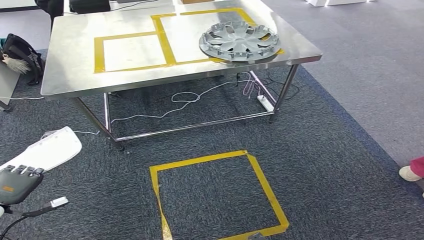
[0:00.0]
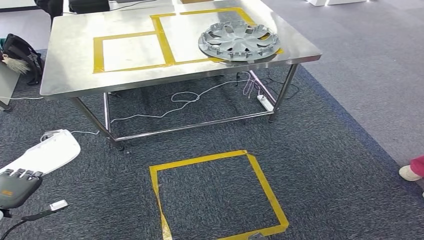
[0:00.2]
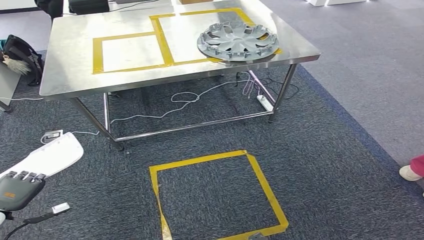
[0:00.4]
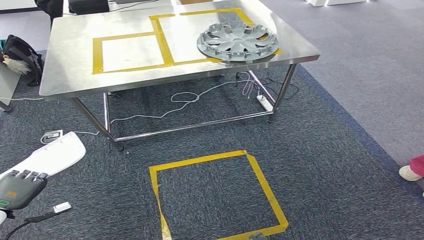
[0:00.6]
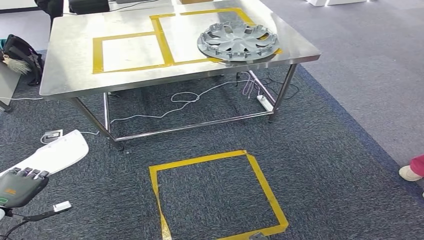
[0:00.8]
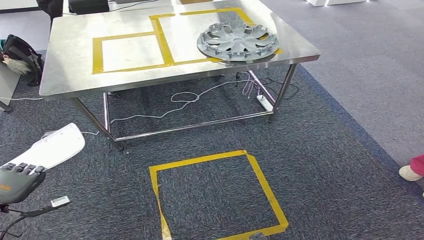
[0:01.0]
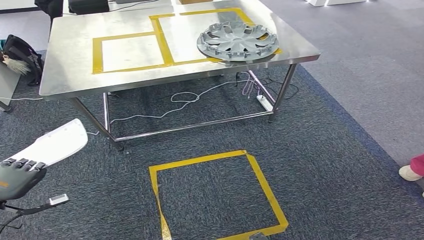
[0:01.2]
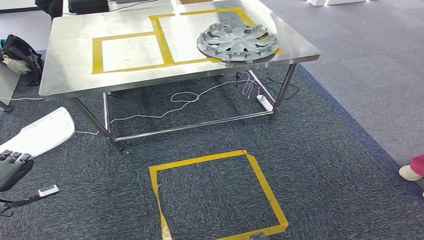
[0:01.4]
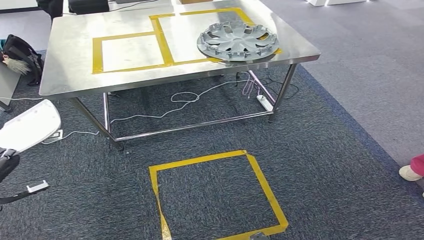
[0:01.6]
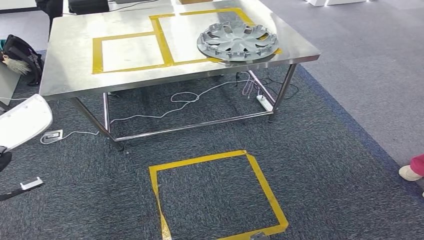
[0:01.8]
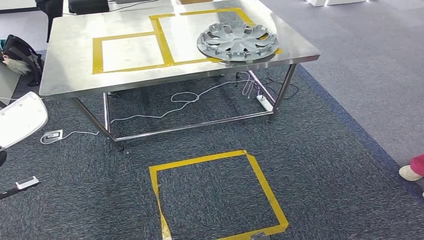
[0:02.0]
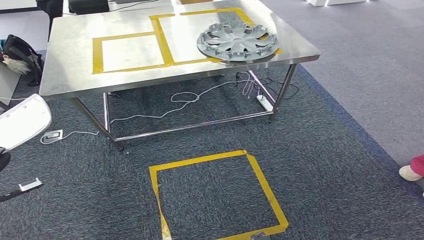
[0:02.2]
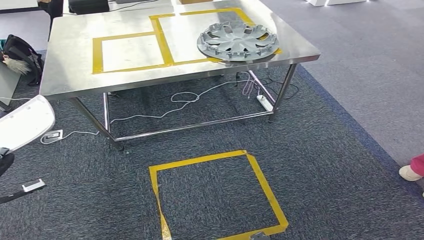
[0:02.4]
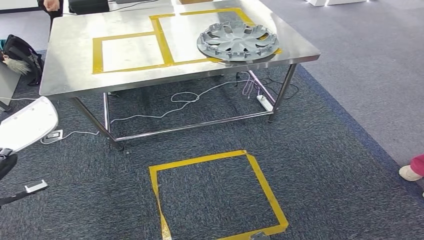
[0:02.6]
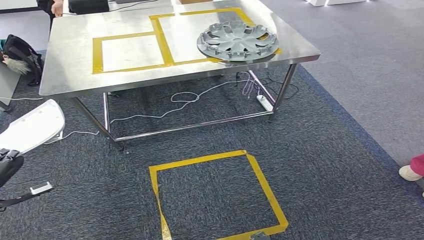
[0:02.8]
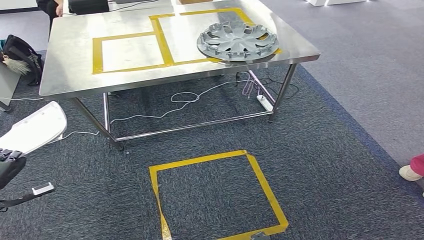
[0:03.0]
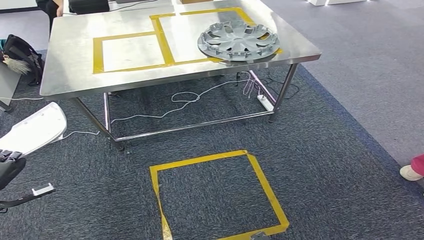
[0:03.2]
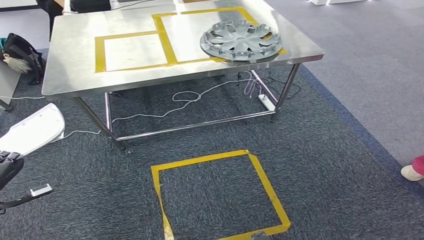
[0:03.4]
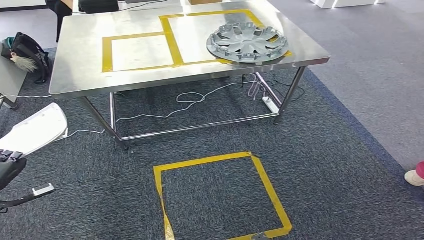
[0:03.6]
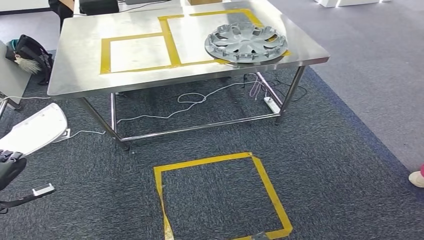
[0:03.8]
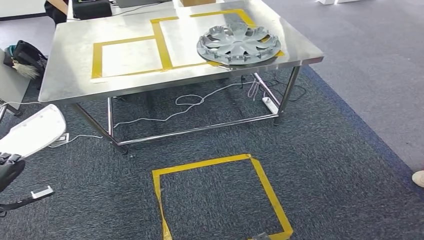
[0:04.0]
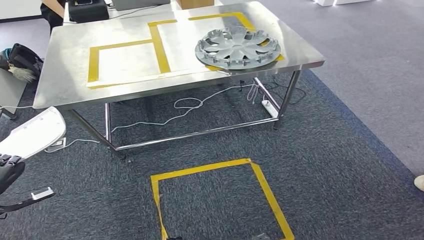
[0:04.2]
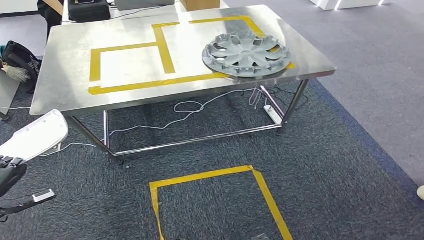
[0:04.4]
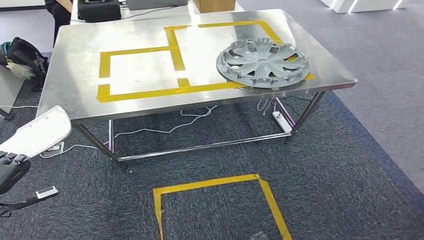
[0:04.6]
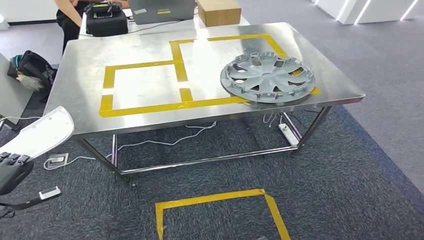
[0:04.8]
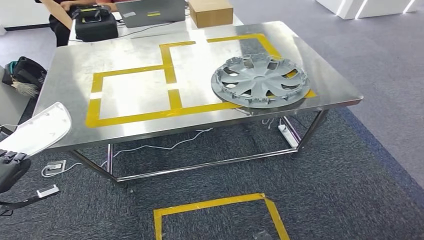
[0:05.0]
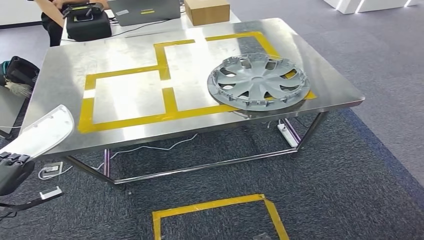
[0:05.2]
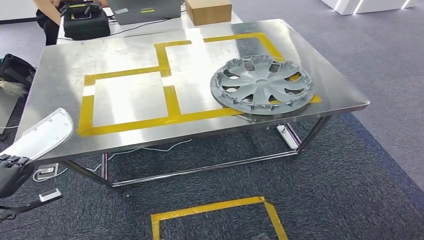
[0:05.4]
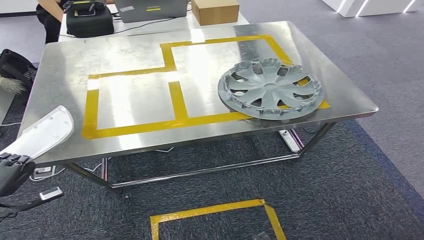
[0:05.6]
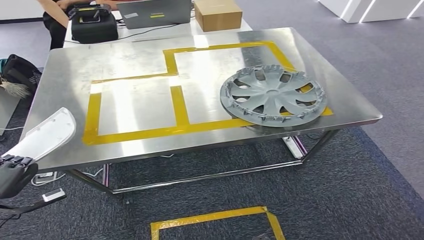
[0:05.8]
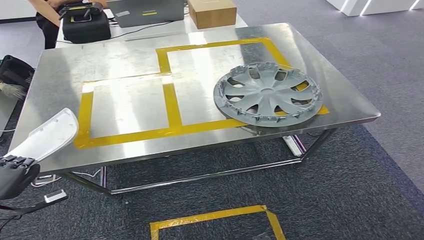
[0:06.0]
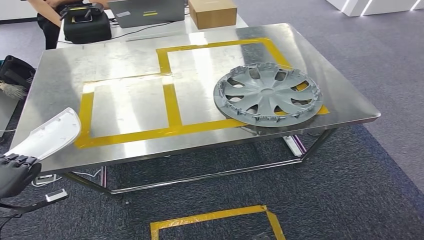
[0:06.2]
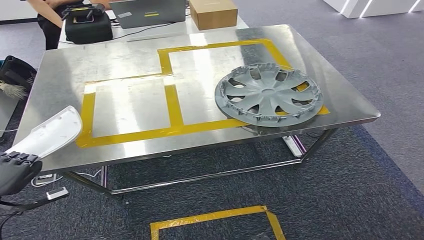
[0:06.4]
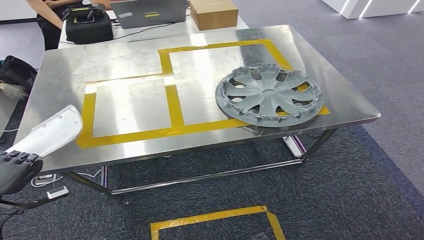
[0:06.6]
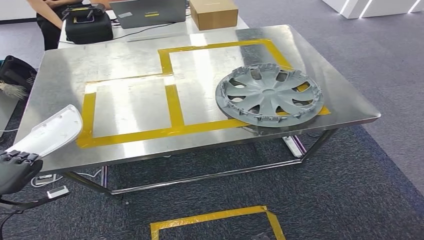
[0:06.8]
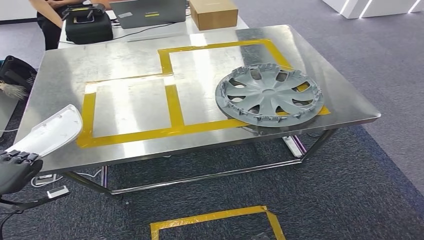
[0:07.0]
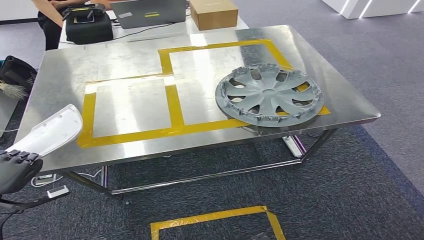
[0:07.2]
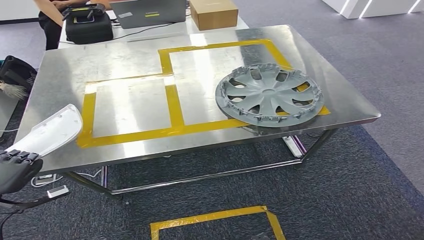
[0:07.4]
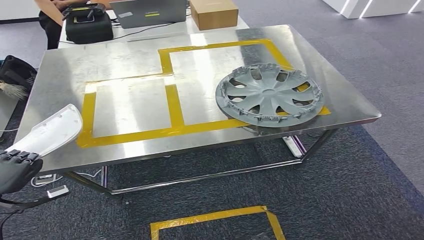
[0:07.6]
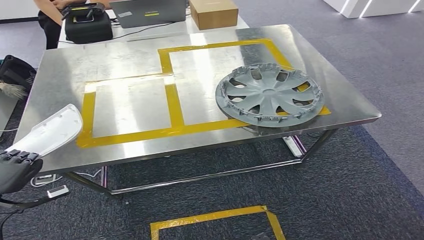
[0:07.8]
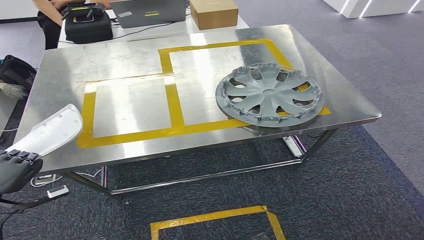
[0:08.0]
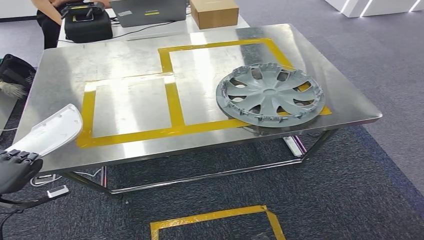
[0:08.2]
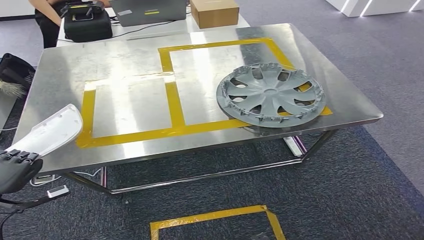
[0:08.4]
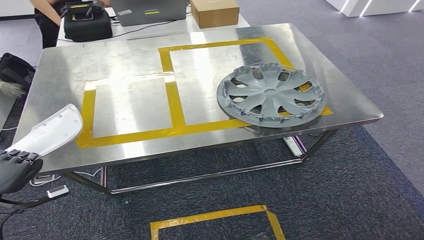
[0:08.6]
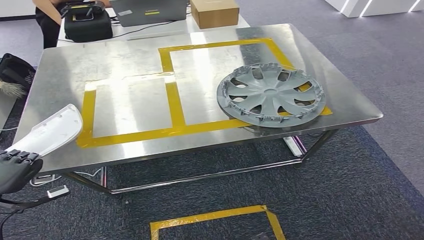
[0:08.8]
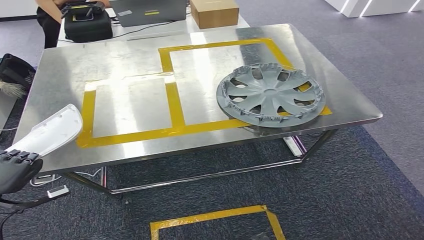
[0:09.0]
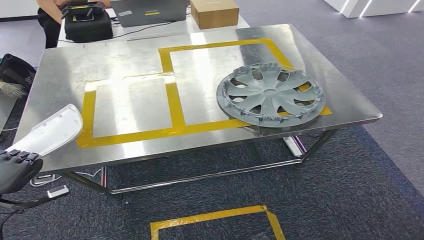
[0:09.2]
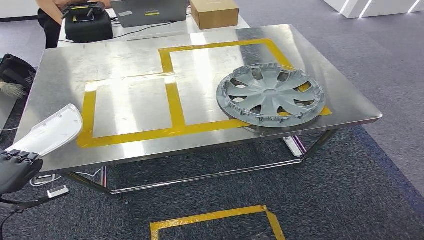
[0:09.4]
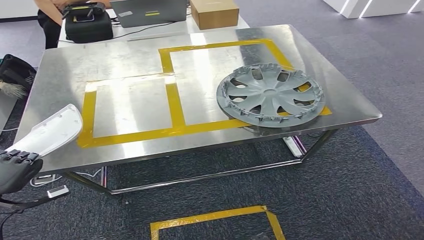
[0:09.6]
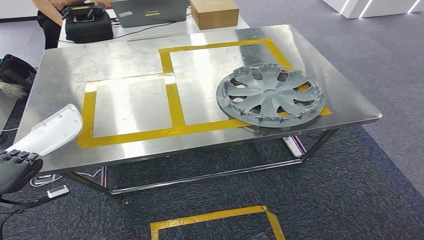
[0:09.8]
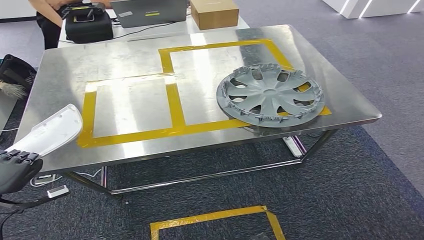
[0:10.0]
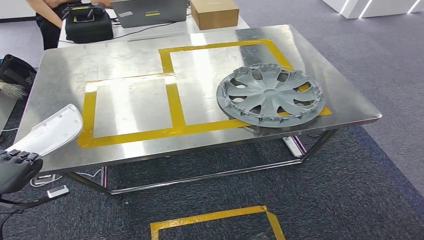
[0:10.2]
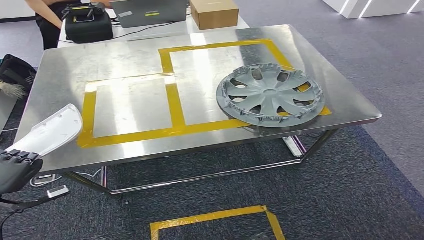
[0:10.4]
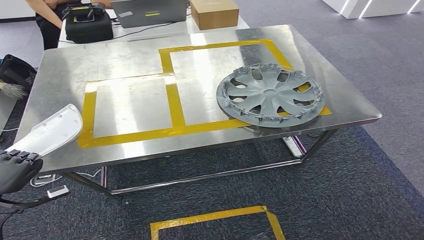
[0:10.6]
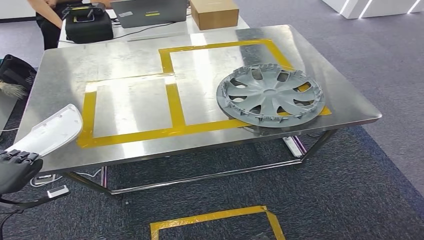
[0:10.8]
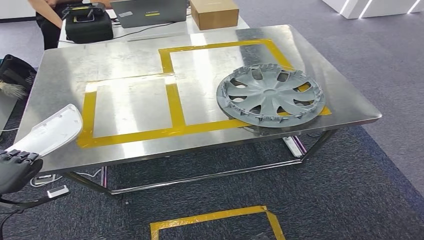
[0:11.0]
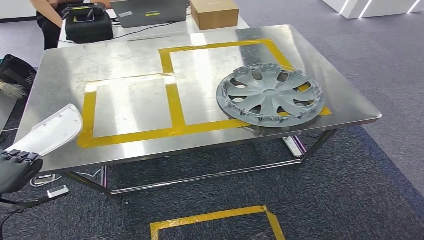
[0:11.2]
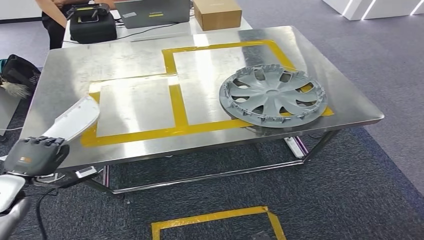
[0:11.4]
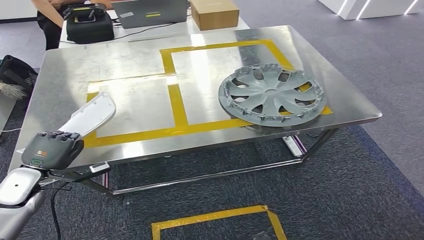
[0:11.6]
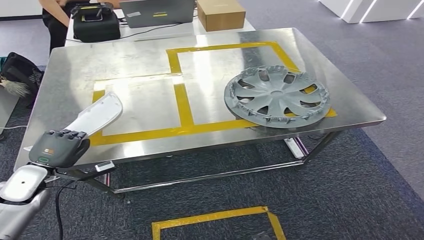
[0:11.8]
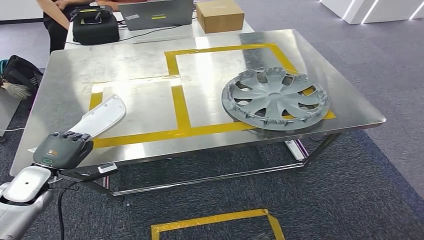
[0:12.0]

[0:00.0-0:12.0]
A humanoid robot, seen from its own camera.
Step, 0:00.0 to 0:06.6: Move the small parts to the workbench.
0:00.0 to 0:01.6: The left hand moves upward, about 10 cm.
0:01.6 to 0:03.0: The hands move only a little.
0:06.0 to 0:07.6: The hands move only a little.
0:07.6 to 0:10.4: Both hands stay put.

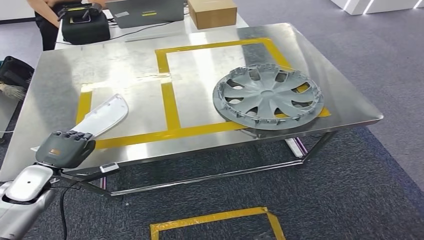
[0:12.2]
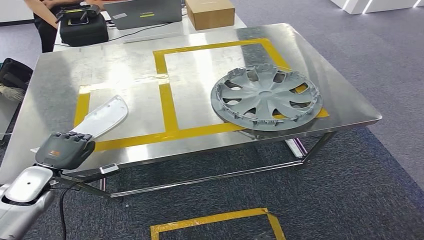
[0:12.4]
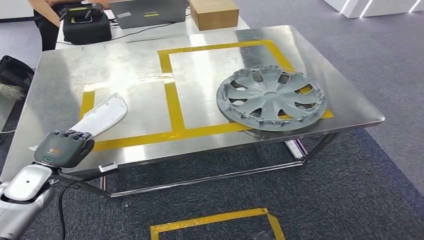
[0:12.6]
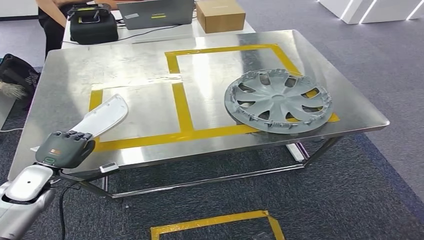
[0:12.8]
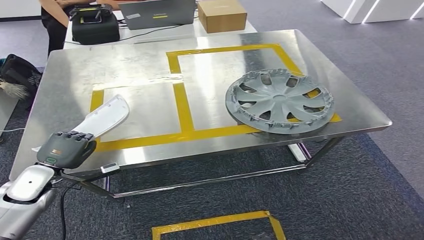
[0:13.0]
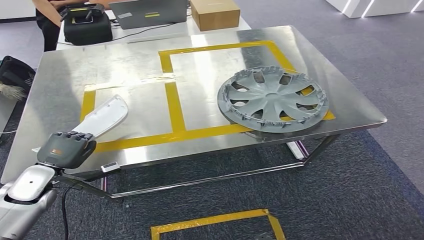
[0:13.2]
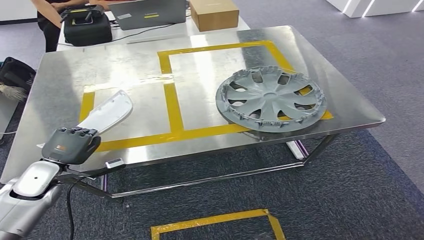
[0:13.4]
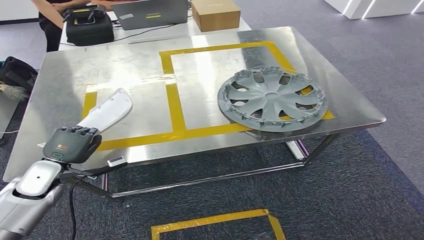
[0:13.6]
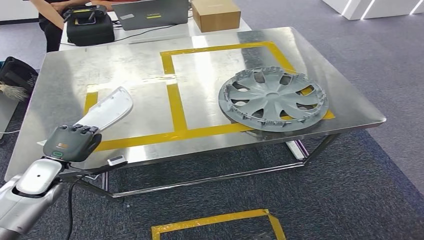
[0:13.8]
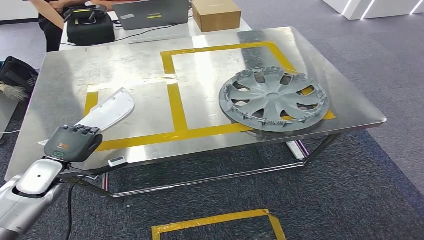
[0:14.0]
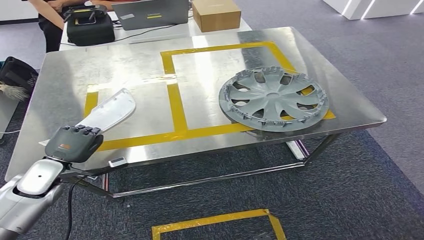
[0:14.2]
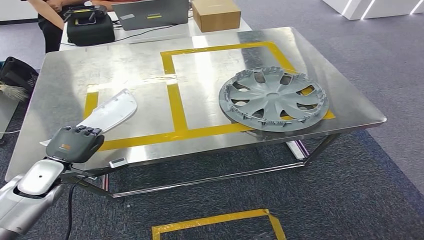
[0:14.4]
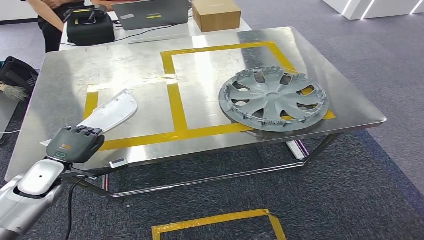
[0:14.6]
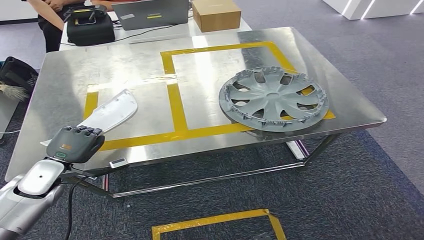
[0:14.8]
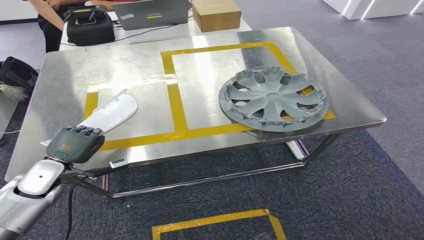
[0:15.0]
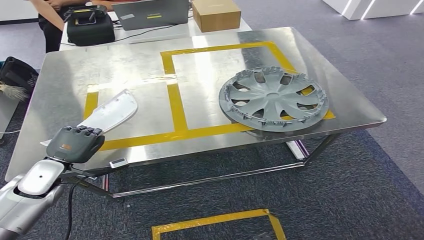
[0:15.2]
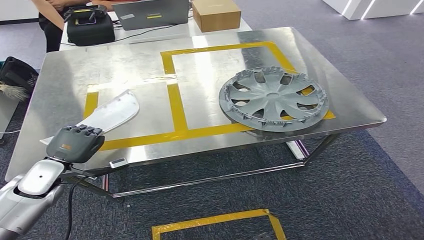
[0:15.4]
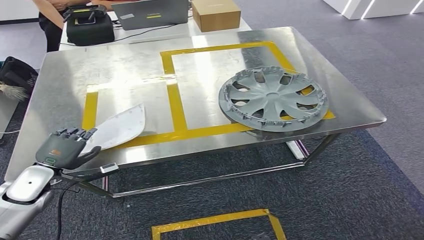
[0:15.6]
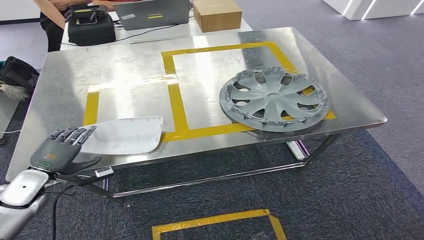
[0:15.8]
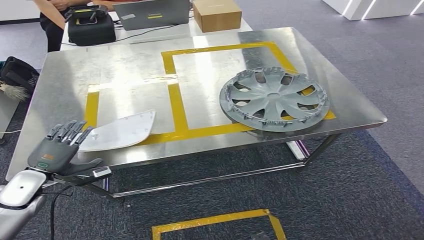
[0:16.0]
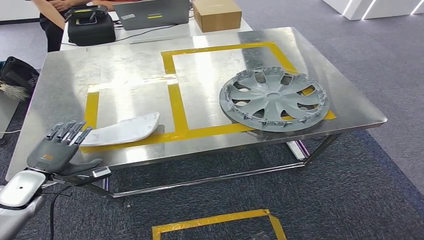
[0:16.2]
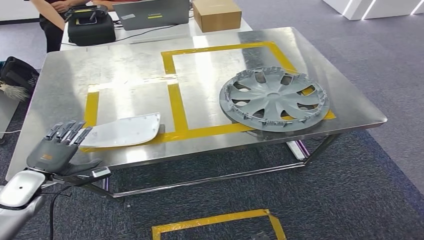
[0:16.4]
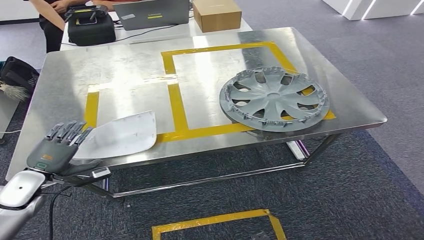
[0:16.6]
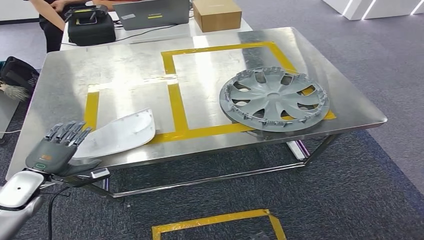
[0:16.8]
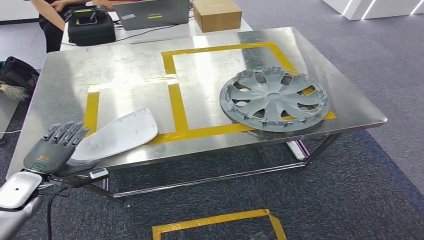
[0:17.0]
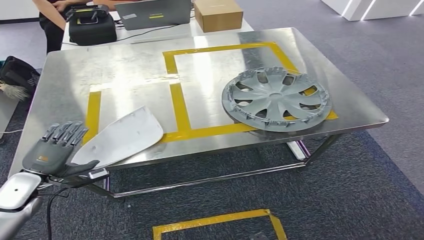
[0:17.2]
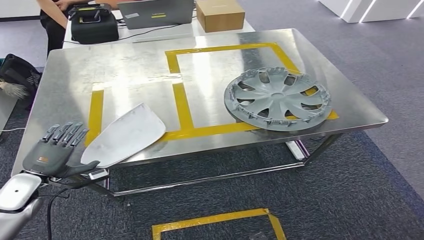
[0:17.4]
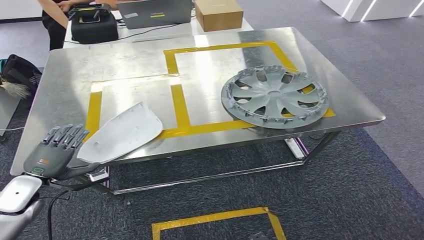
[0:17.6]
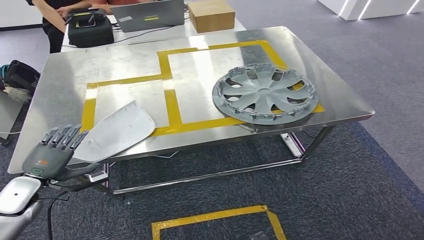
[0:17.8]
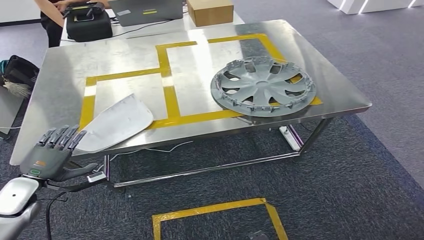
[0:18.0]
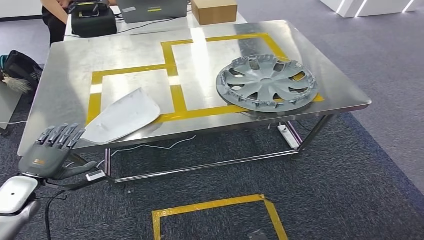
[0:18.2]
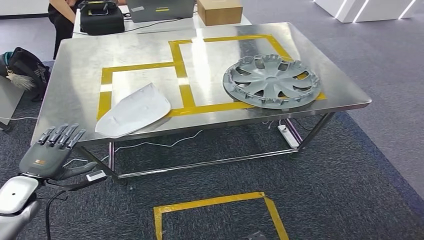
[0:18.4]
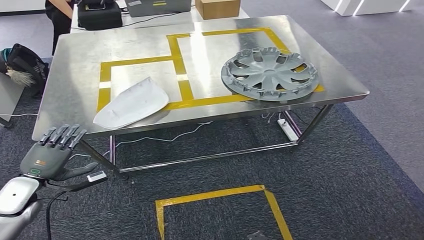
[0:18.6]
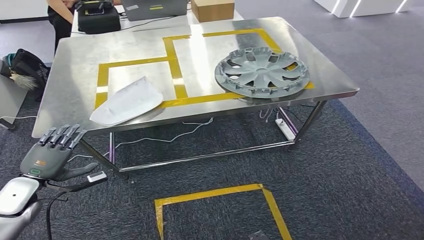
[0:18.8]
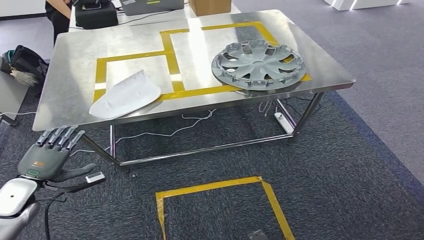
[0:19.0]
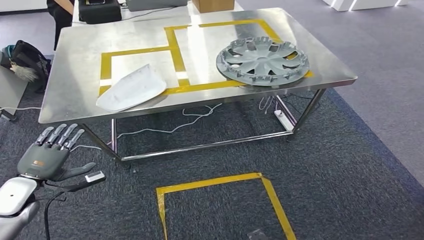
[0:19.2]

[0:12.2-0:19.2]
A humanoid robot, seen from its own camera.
Step, 0:12.2 to 0:18.2: Insert the small parts into the corresponding slots on the workbench.
0:12.2 to 0:13.6: The hands stay close to where they were, moving slightly.
0:13.6 to 0:15.0: Neither hand changes place.
0:15.0 to 0:16.4: The left hand moves approximately 5 cm.
